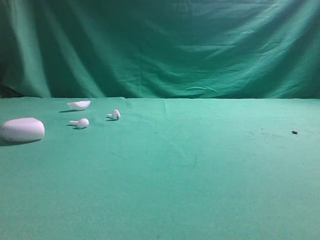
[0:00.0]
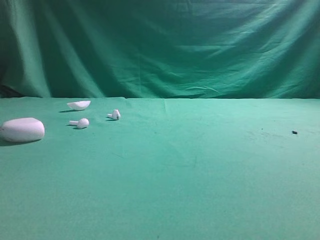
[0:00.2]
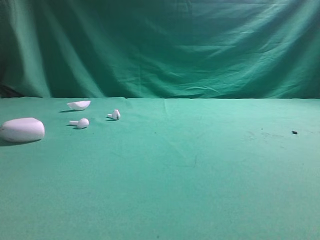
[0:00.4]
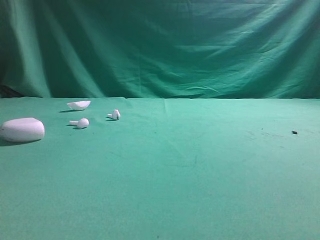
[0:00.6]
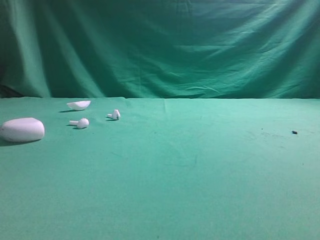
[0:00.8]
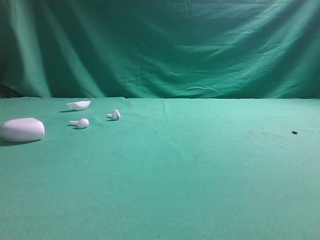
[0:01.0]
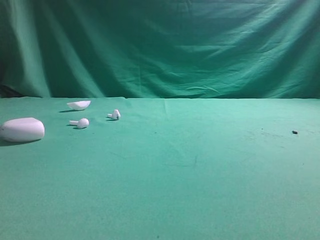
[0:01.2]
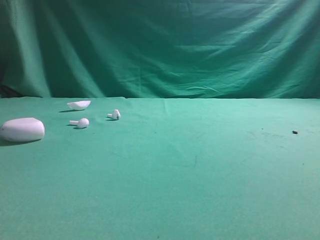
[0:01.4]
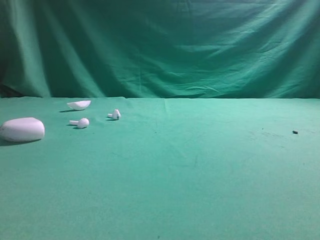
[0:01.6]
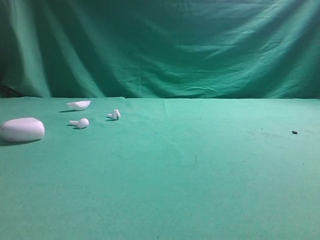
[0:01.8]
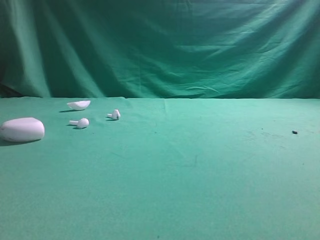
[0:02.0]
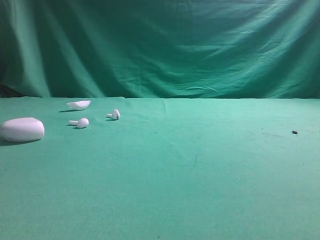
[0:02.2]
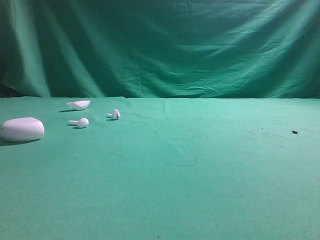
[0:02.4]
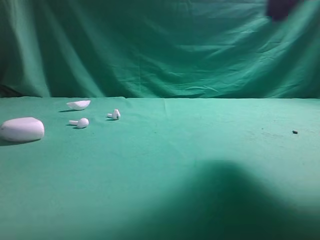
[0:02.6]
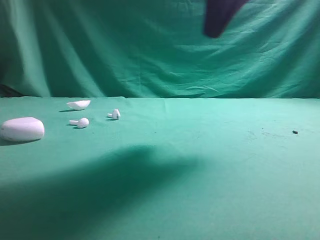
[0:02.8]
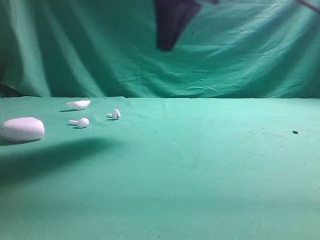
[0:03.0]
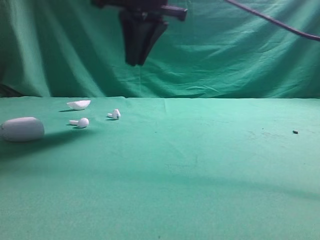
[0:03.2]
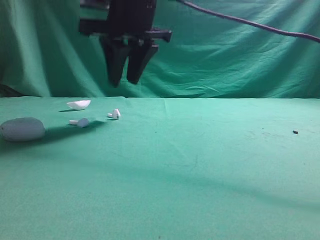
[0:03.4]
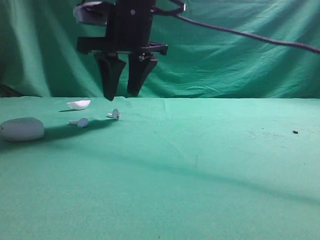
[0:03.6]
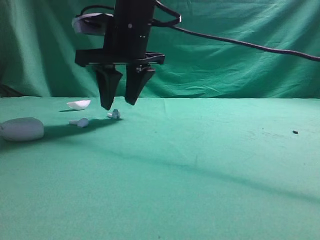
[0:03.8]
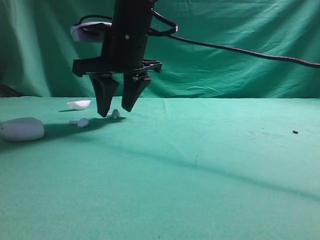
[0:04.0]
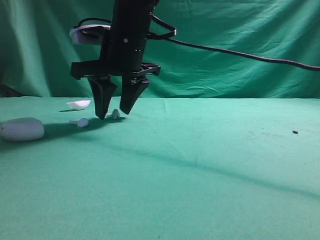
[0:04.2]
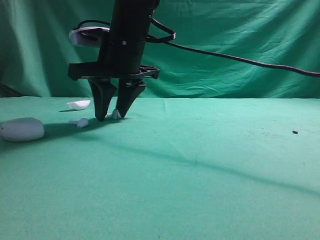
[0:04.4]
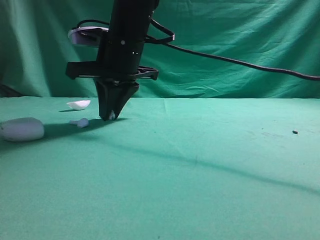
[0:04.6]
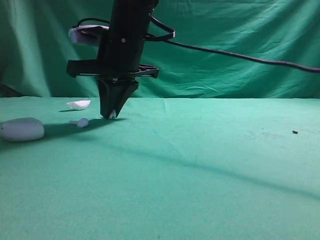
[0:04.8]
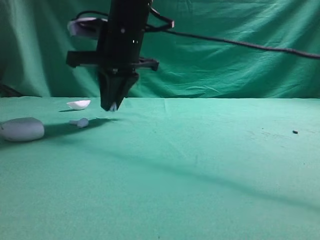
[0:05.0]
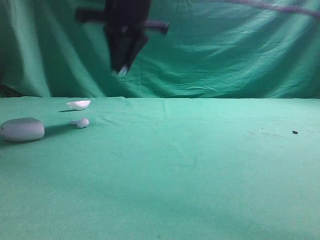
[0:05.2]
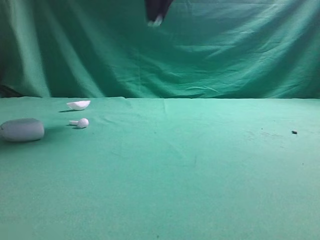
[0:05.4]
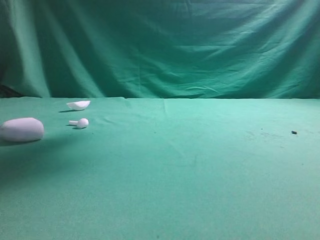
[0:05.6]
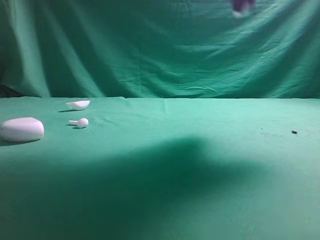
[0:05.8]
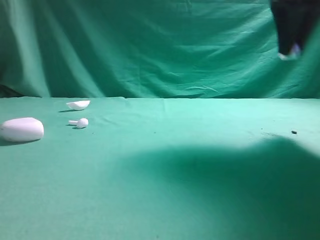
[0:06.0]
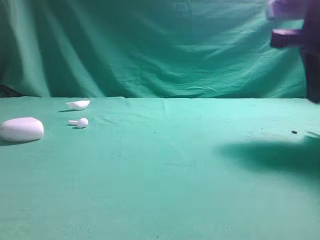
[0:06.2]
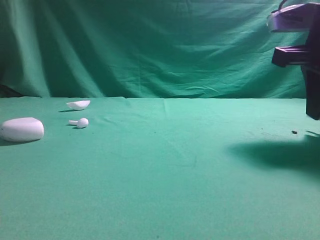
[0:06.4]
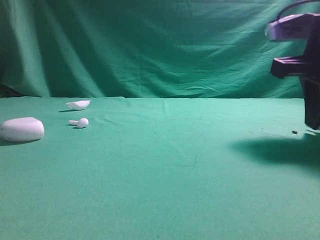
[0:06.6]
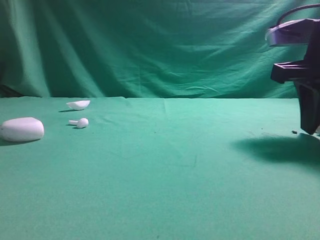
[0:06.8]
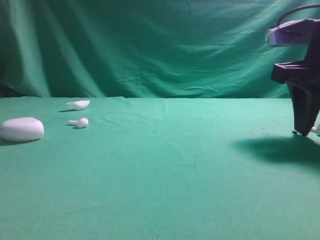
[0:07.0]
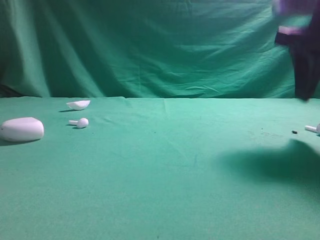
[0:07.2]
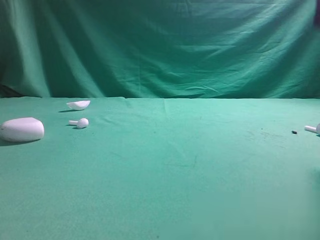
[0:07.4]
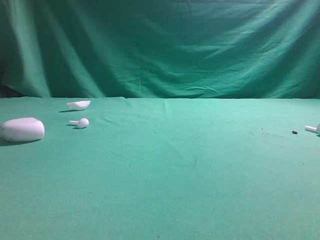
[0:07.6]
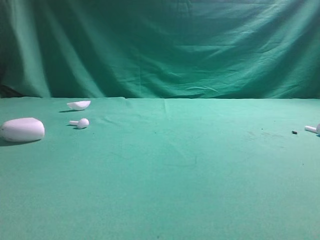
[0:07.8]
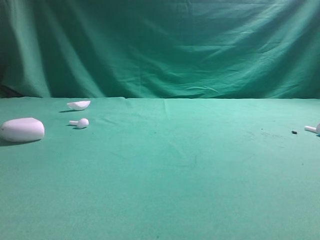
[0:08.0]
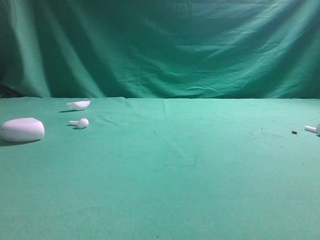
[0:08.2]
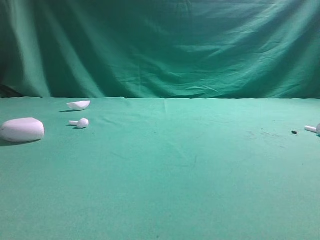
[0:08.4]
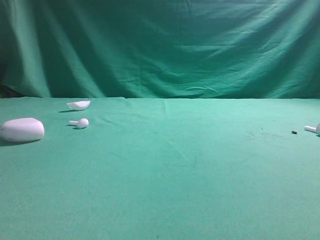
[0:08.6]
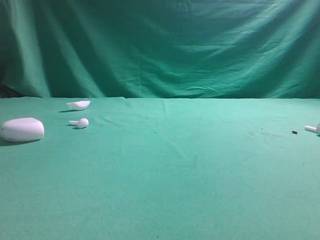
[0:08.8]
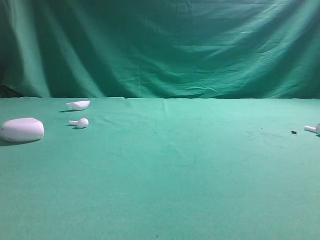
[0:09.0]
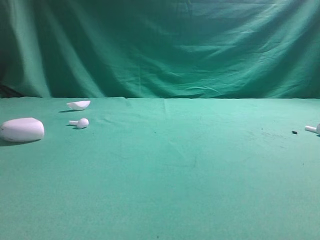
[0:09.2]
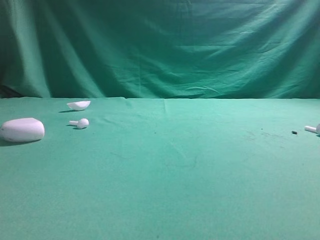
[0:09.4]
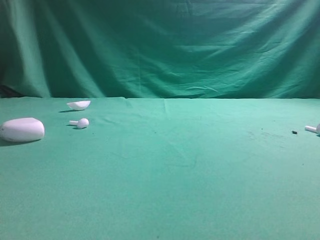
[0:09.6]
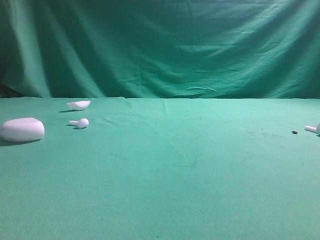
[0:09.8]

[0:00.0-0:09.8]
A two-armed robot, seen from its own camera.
Step, 0:00.0 to 0:05.2: Grasp the Bluetooth earbud.
Step, 0:05.4 to 0:07.2: Place bluetooth earbud on the right side of the table.

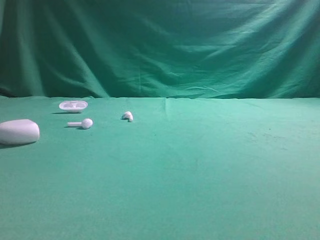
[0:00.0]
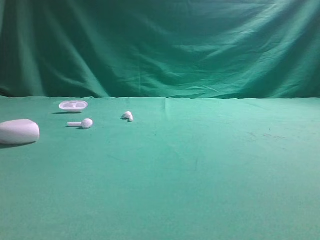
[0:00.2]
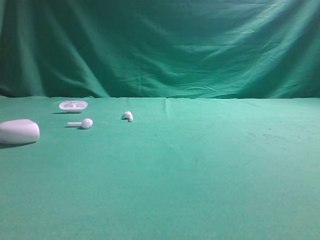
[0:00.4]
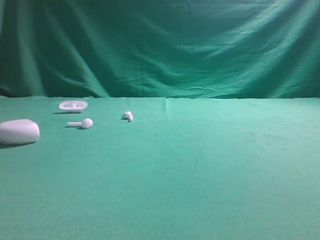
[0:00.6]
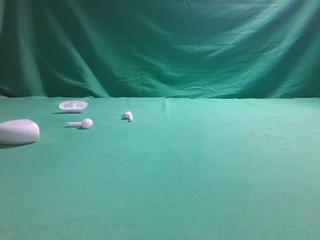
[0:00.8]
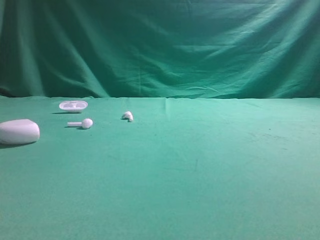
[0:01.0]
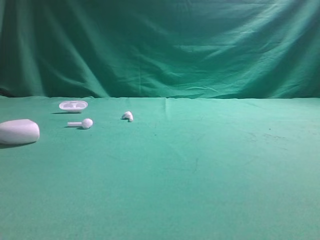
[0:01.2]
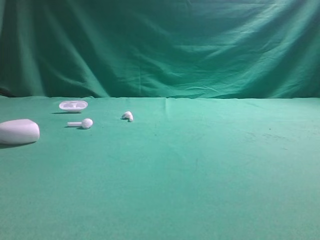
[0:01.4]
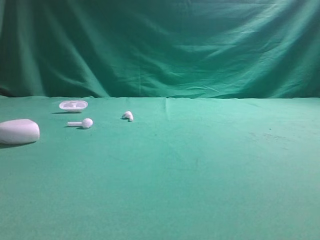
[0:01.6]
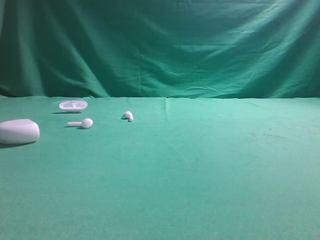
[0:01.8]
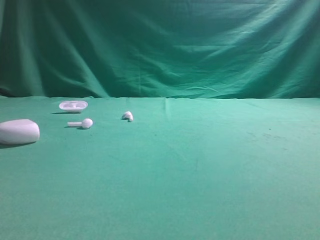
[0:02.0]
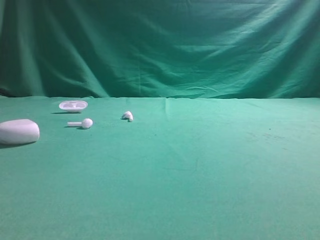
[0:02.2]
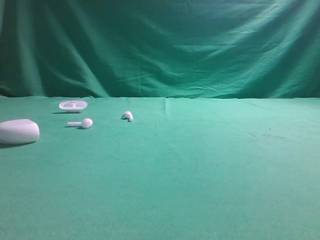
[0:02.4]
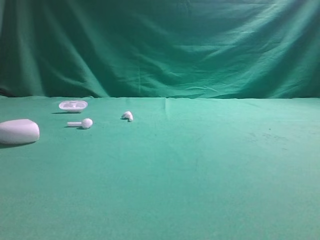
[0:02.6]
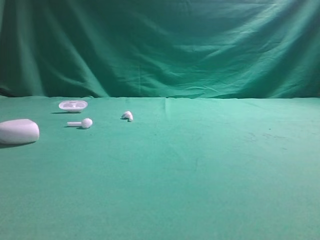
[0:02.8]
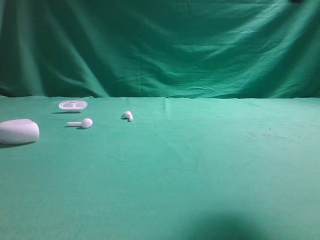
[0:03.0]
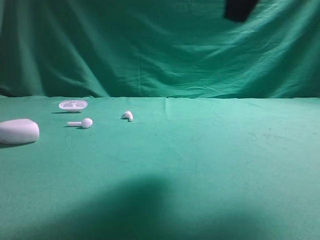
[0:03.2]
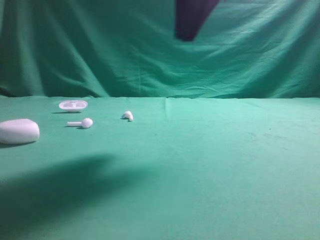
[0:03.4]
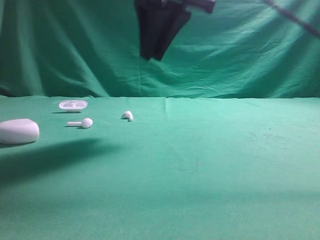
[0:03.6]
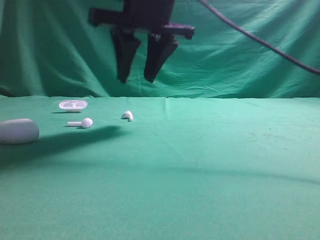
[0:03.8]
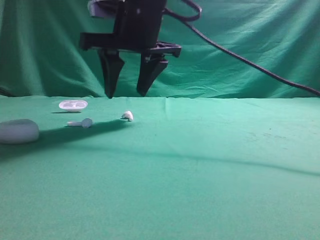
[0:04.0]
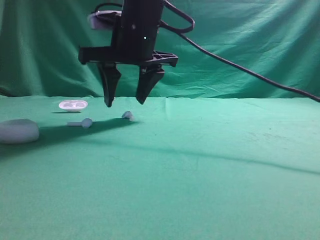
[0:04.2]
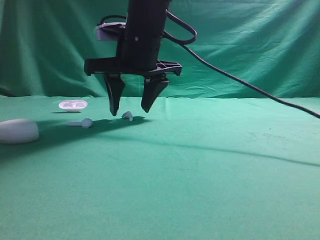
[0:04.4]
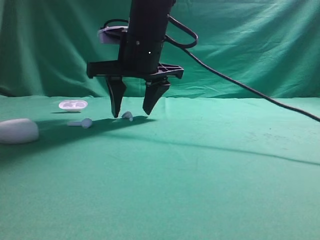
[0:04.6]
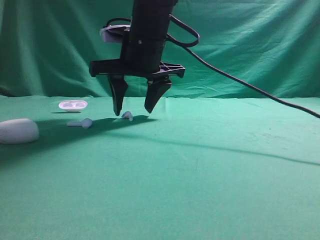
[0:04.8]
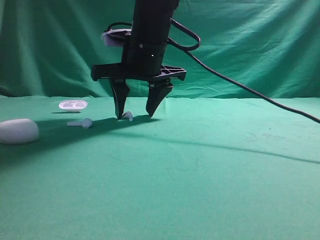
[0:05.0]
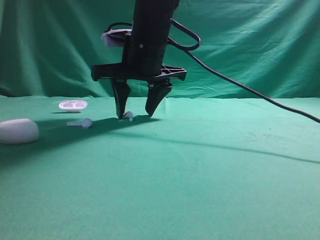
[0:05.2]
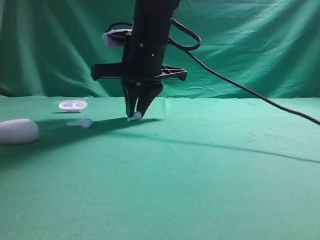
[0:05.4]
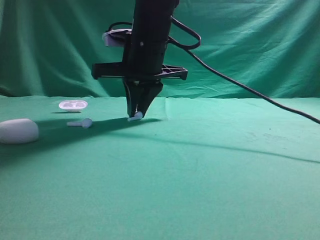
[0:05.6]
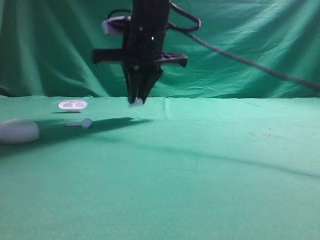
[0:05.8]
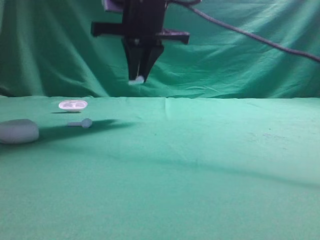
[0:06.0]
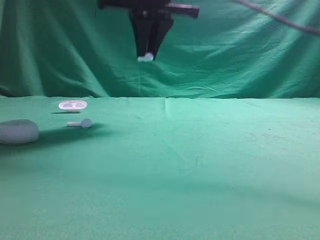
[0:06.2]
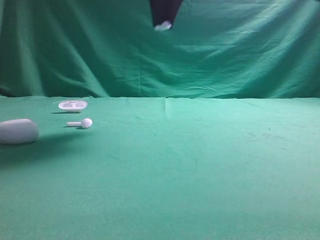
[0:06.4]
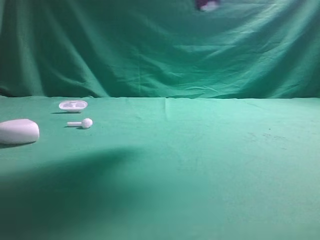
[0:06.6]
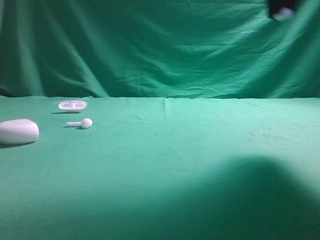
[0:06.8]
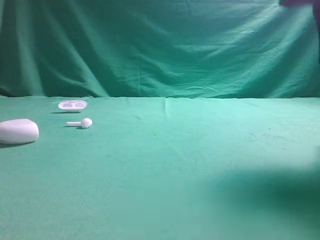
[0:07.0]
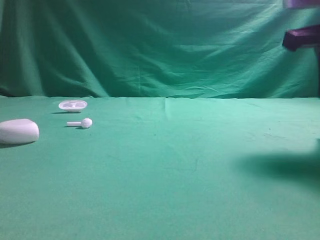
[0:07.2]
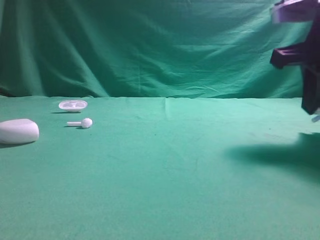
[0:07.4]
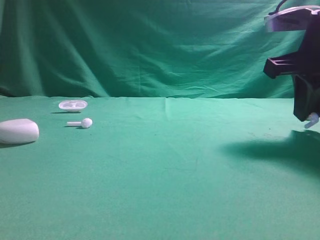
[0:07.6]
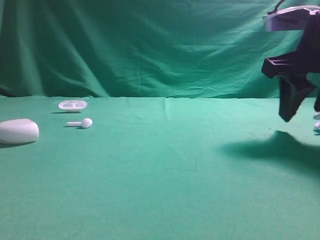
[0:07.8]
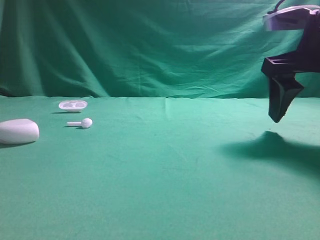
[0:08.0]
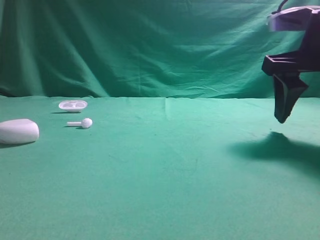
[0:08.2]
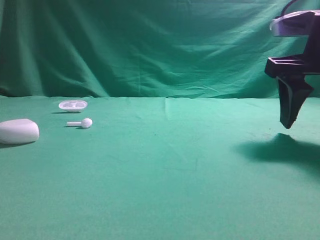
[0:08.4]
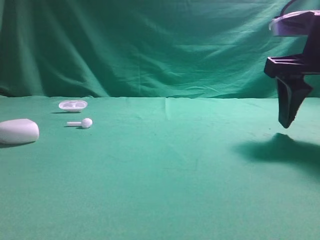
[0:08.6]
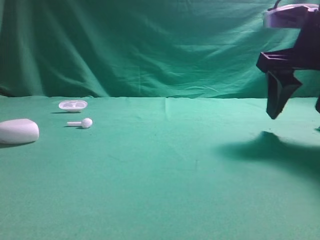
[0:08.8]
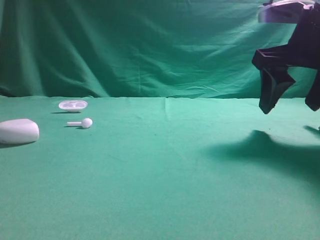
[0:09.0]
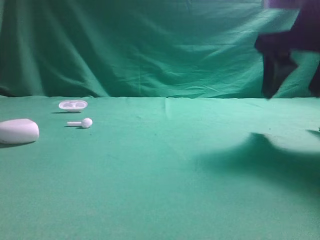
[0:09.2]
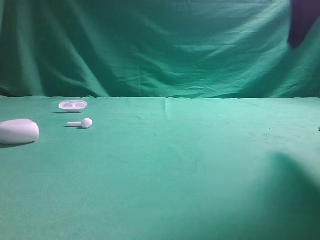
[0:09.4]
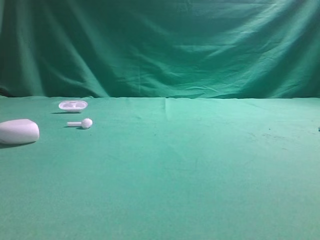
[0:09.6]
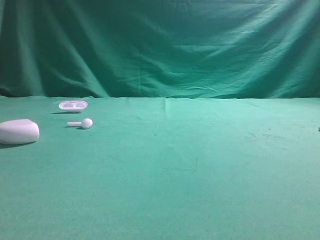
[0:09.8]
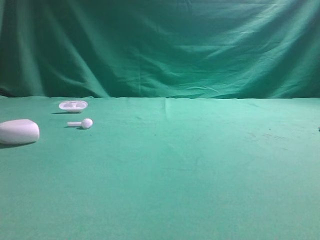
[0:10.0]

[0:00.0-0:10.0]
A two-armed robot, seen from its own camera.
Step, 0:00.0 to 0:05.6: Grasp the Bluetooth earbud.
Step, 0:05.8 to 0:09.2: Place bluetooth earbud on the right side of the table.

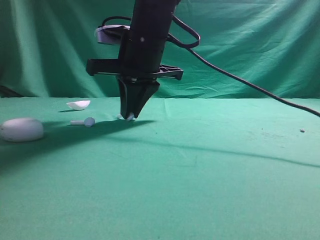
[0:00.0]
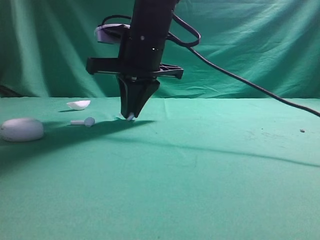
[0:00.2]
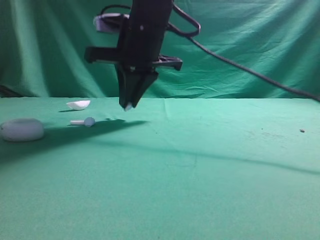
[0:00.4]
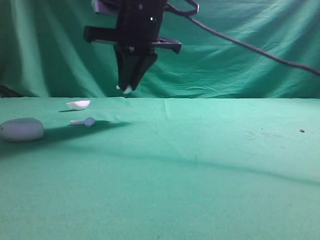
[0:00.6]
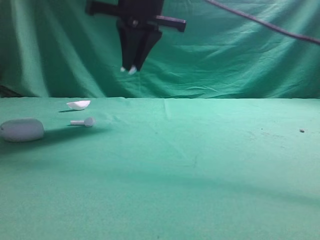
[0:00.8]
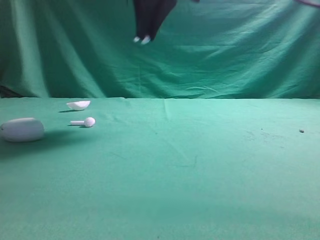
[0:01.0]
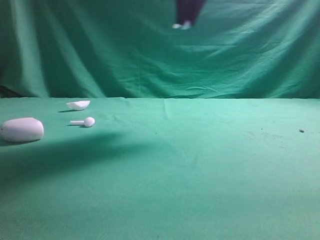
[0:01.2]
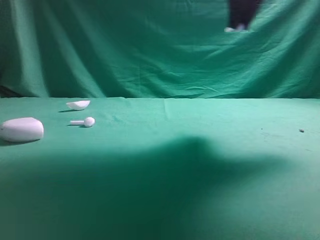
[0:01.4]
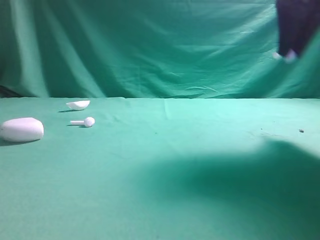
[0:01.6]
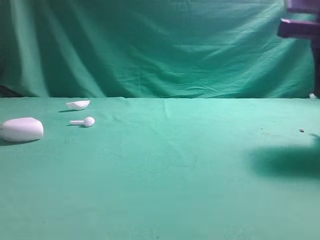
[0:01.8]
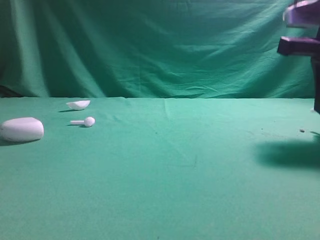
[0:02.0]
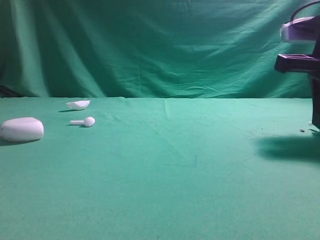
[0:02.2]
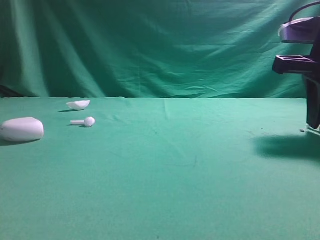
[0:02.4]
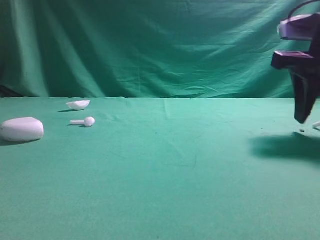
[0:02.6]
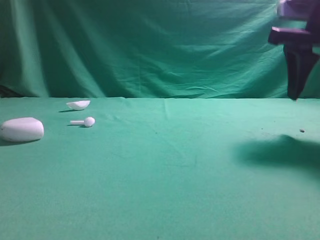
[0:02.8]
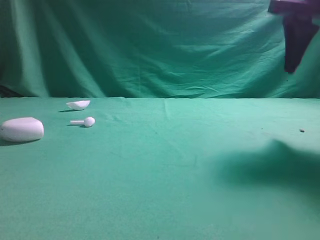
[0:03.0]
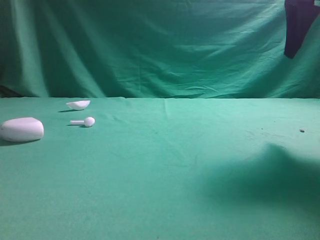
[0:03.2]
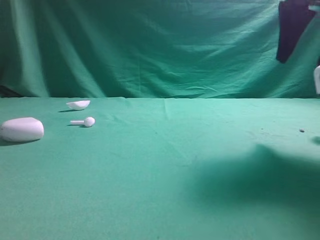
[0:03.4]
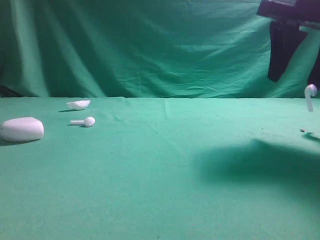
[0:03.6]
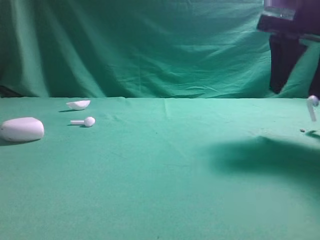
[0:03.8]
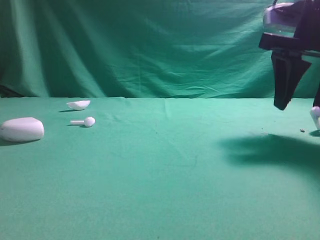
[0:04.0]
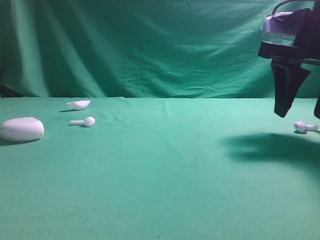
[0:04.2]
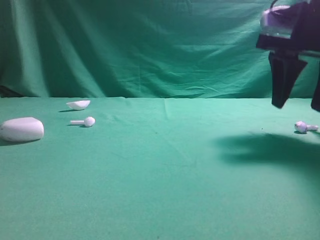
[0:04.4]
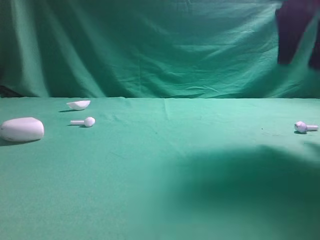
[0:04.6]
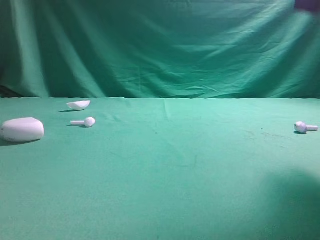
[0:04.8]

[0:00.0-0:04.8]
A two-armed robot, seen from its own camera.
Step, 0:01.0 to 0:04.6: Place bluetooth earbud on the right side of the table.
